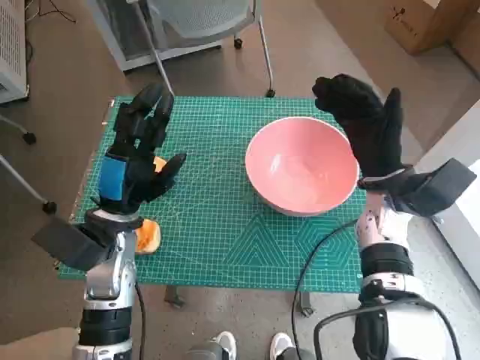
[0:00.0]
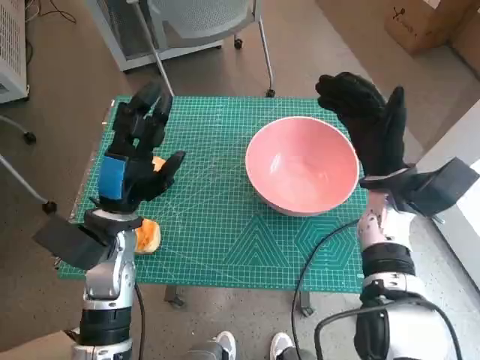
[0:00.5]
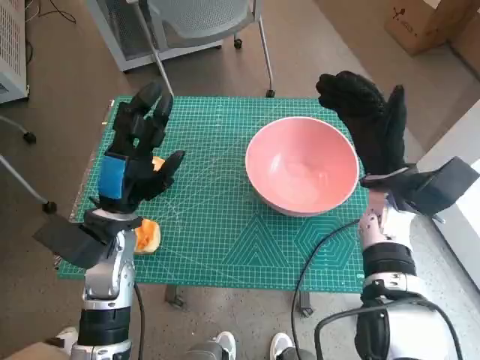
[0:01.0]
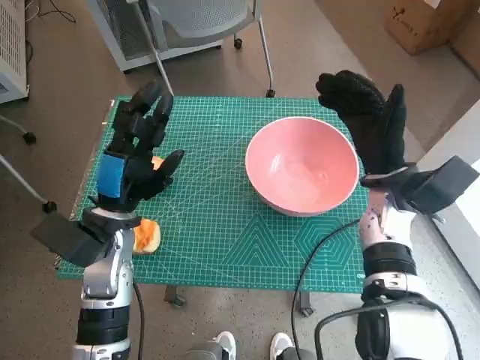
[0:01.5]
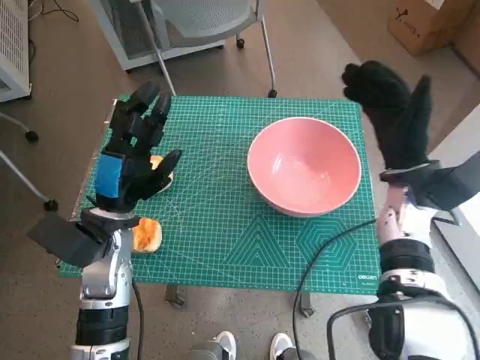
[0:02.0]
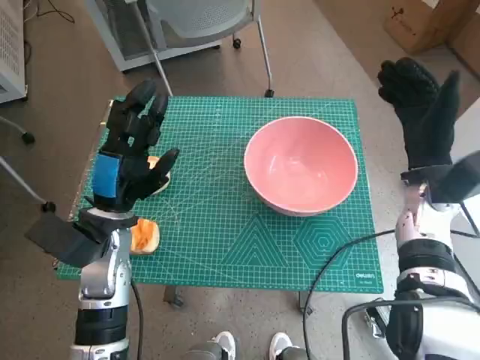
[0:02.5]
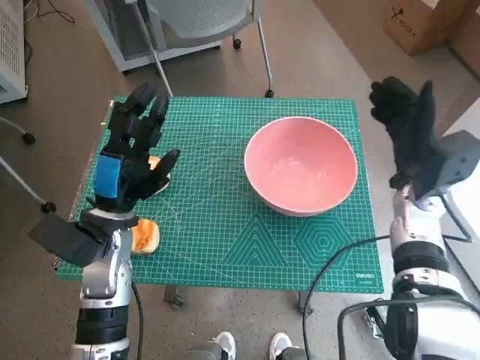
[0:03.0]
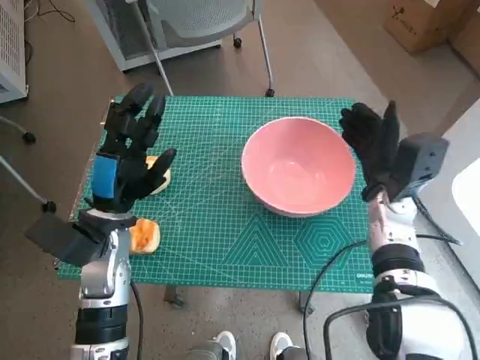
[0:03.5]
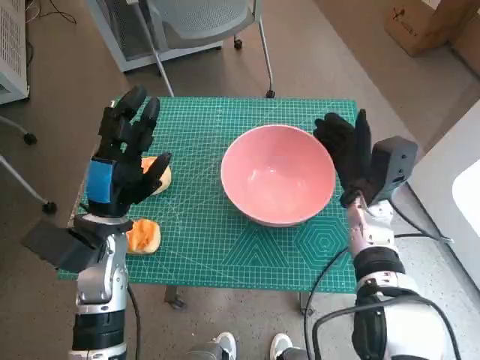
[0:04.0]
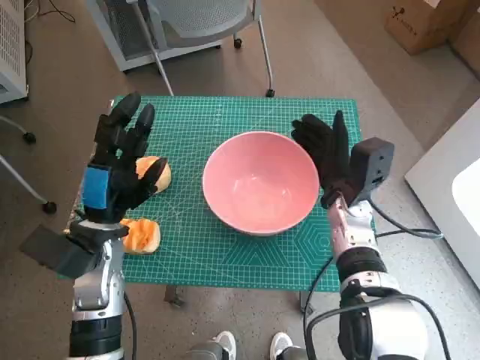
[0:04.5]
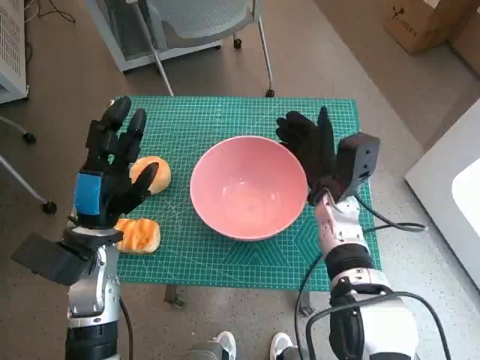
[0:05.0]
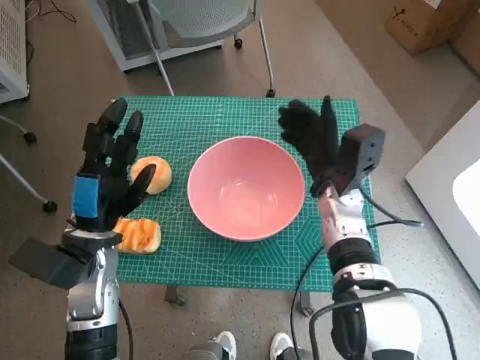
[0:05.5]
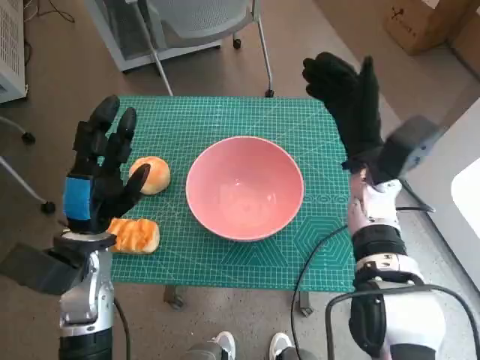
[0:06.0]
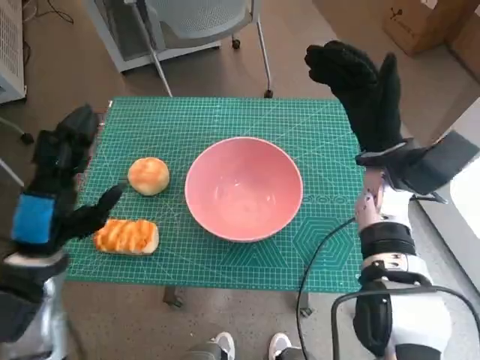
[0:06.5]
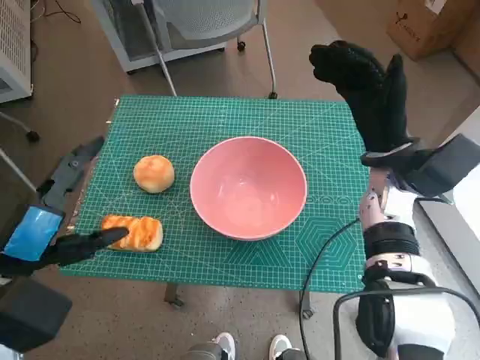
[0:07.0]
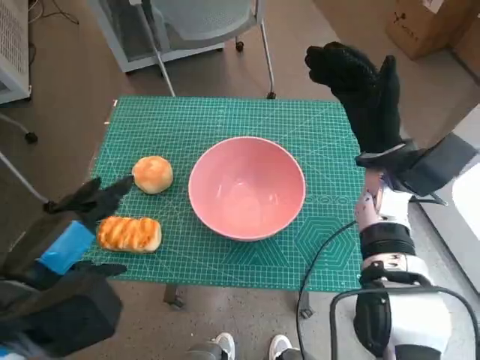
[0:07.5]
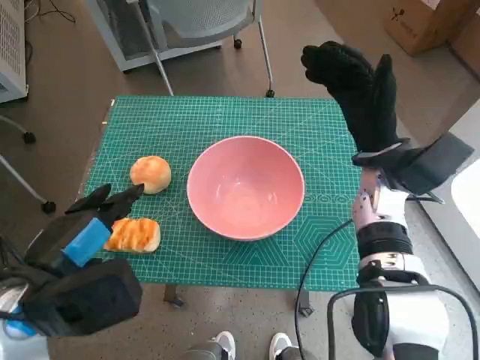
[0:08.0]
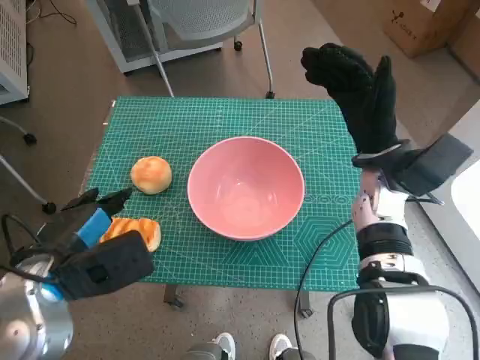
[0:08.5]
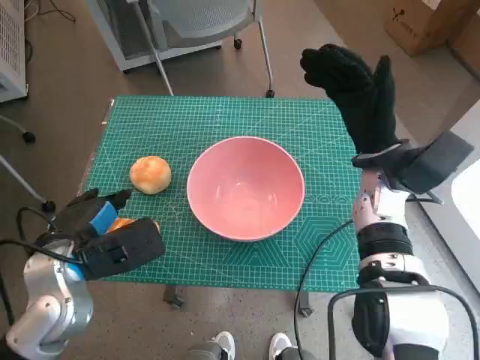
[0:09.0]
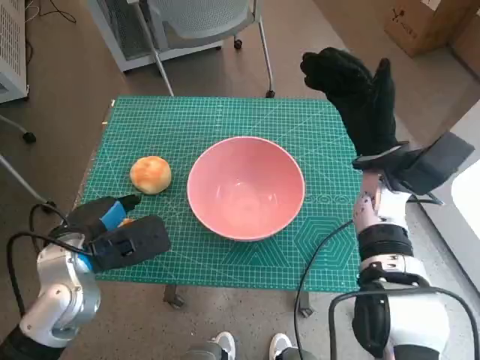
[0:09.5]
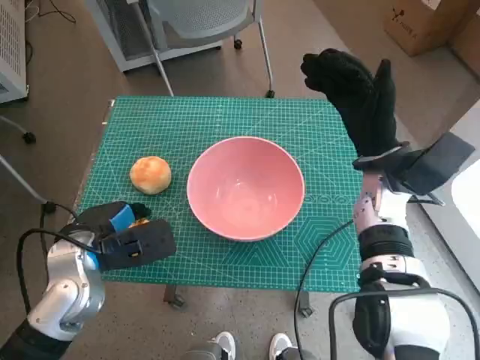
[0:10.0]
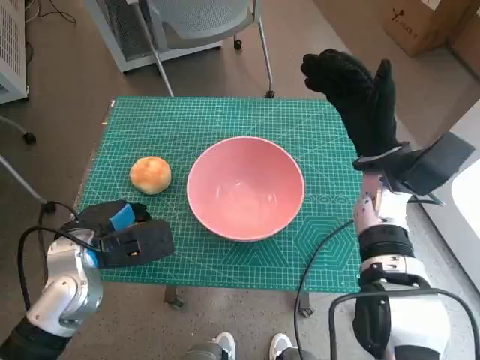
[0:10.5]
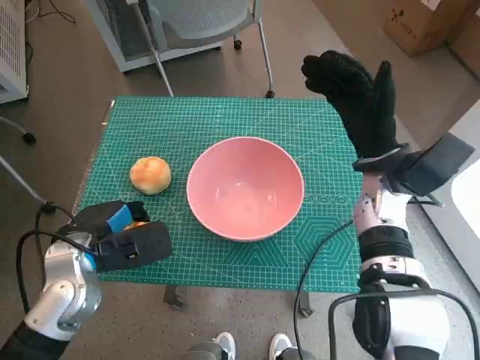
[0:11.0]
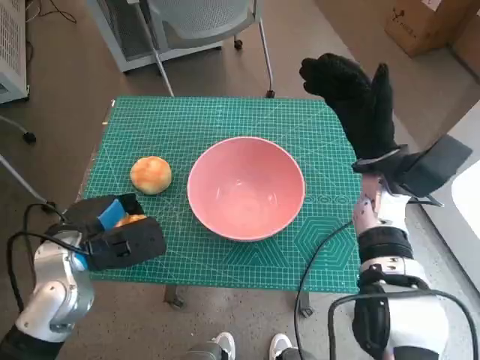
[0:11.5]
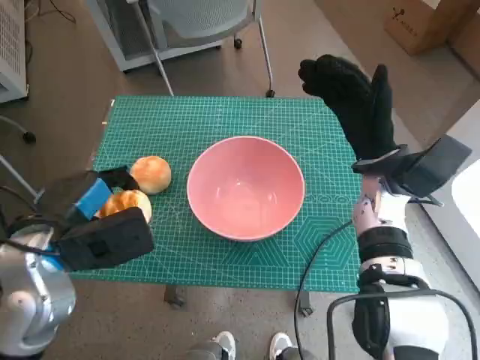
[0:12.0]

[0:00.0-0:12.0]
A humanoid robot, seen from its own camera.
Step, 0:00.0 to 0:05.0: Move the pink bowl to the center of table with right hand.
Step, 0:05.5 to 0:10.0: Grasp the long bread with left hand.
0:02.0 to 0:04.0: The right hand travels downward by roughly 5 cm.
0:04.0 to 0:06.0: The right hand is displaced upward by some 5 cm.
0:06.0 to 0:08.0: The left hand moves upward and backward, some 10 cm.
0:08.0 to 0:10.0: The left hand moves forward and downward, approximately 10 cm.
0:10.0 to 0:12.0: The left hand moves upward, about 5 cm.

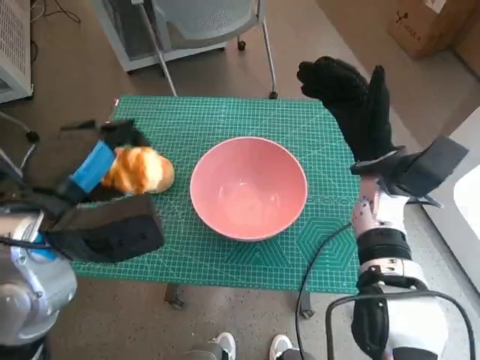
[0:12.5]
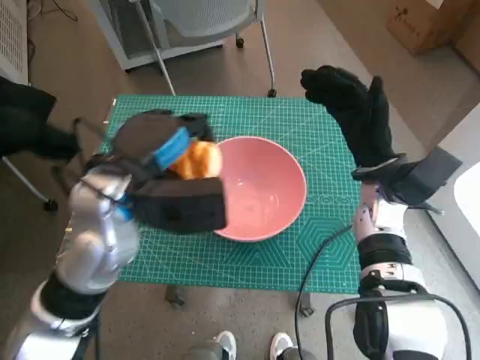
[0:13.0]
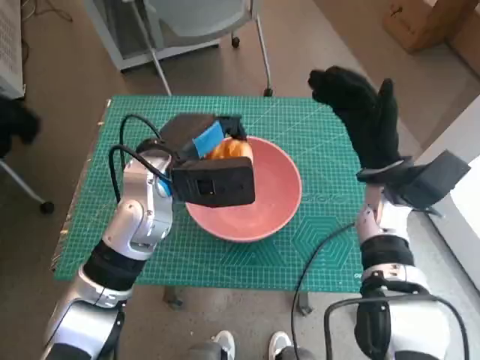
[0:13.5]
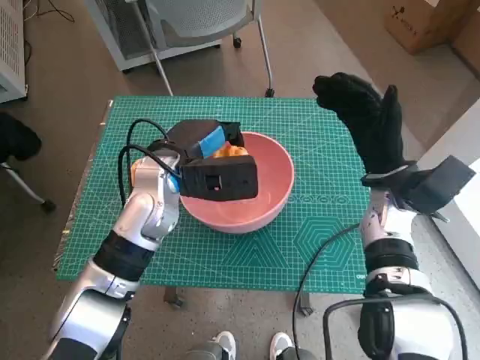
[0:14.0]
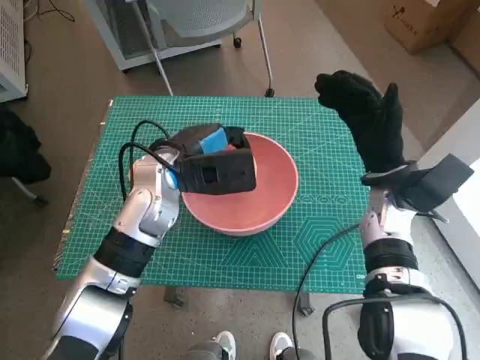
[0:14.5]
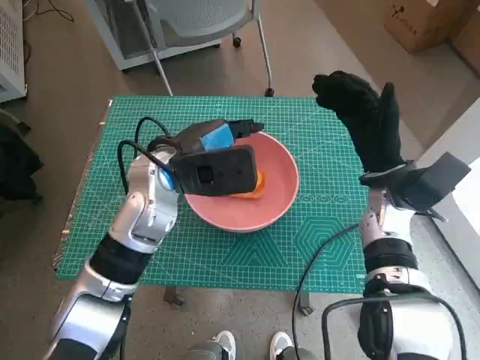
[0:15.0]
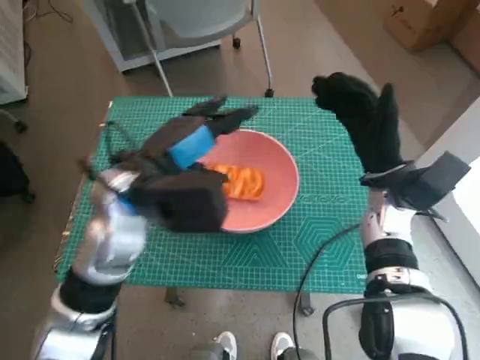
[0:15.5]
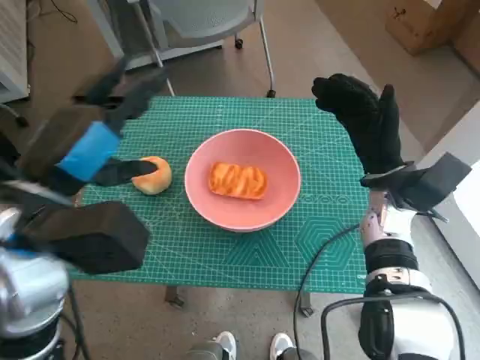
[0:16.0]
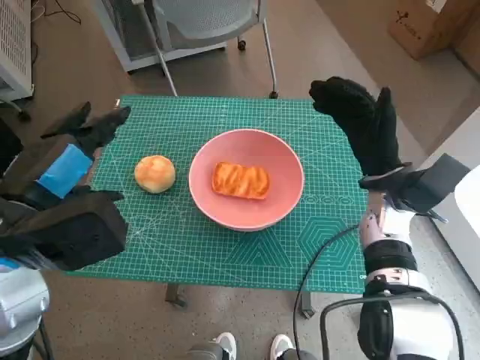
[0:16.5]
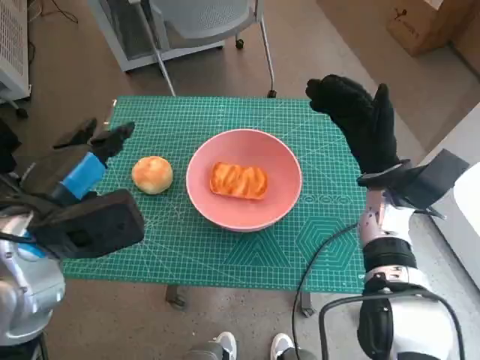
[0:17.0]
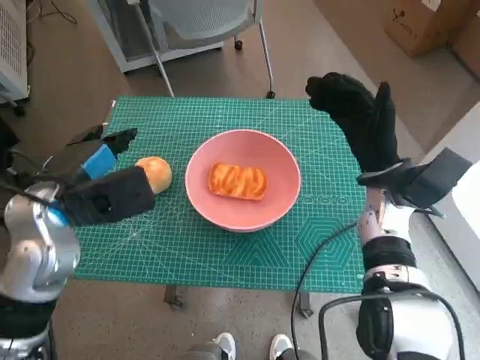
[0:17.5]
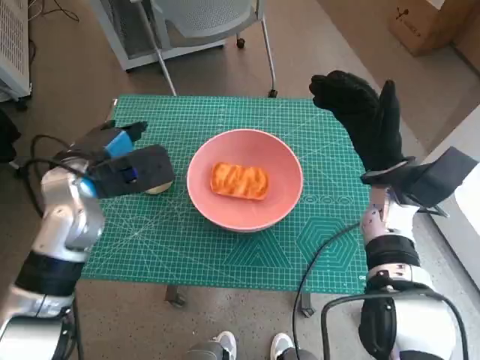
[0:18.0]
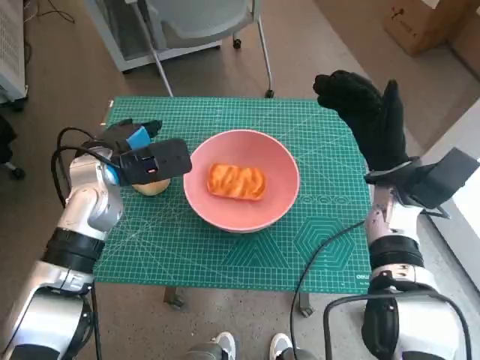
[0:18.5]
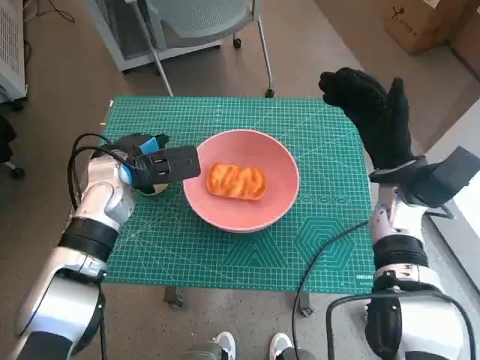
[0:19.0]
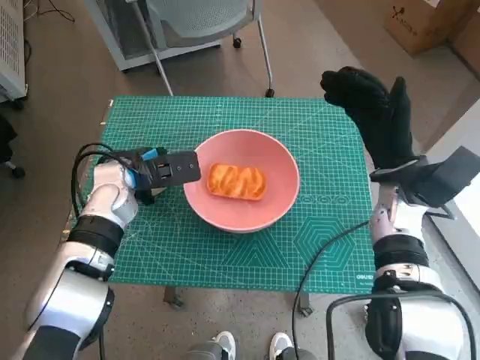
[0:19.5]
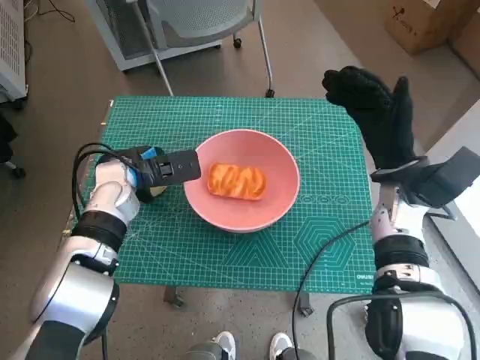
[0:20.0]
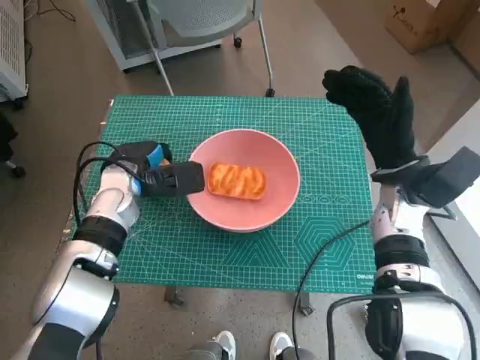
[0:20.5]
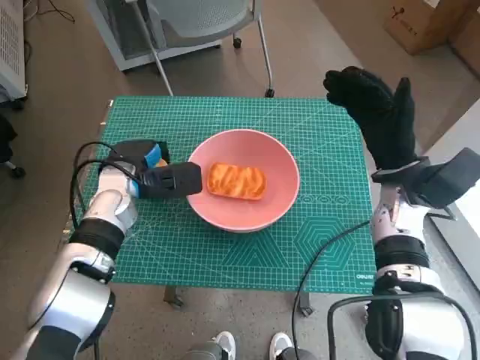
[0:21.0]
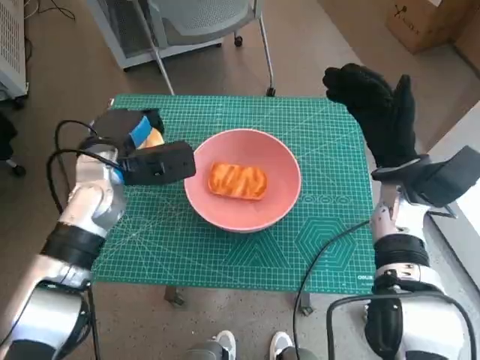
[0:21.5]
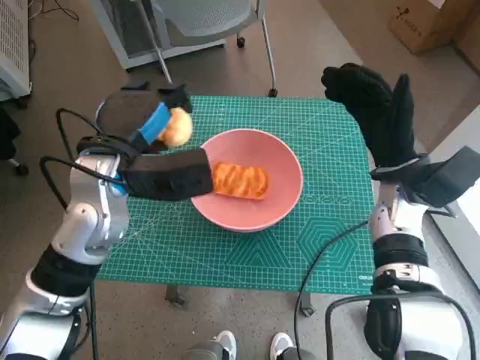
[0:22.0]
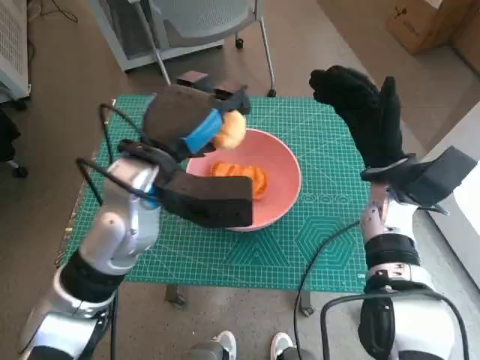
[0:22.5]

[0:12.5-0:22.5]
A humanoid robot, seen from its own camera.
Step, 0:12.5 to 0:14.5: Place the long bread in pink bowl with left hand.
Step, 0:15.0 to 0:20.5: Grasp the round bread with left hand.
0:12.5 to 0:14.5: The left hand is displaced forward, to the right and downward by roughly 15 cm.
0:14.5 to 0:16.5: The left hand goes some 20 cm backward, to the left and upward.
0:16.5 to 0:18.5: The left hand shifts roughly 15 cm forward and downward.
0:18.5 to 0:20.5: The left hand travels downward by some 5 cm.
0:20.5 to 0:22.5: The left hand is displaced upward, to the right and backward by some 15 cm.

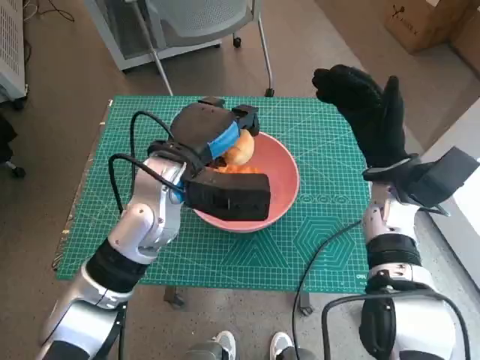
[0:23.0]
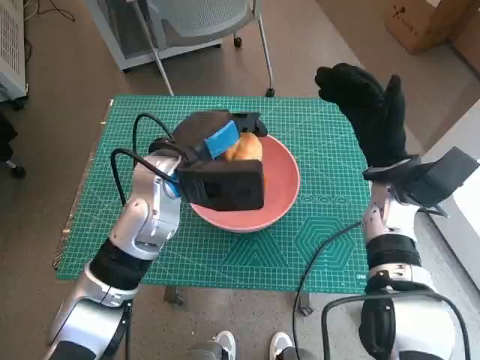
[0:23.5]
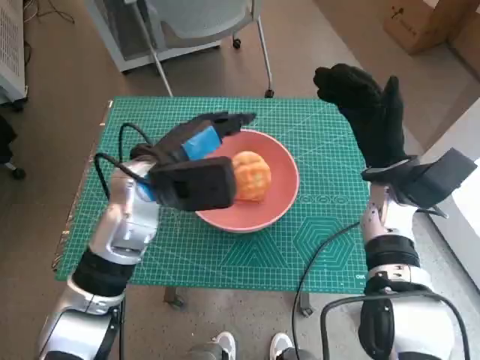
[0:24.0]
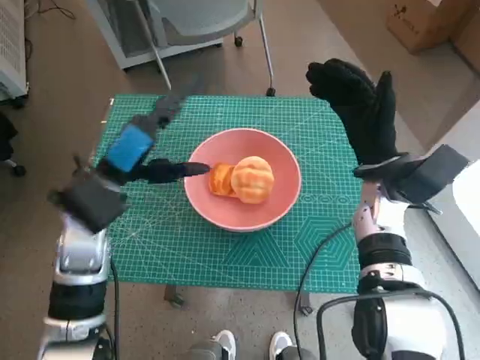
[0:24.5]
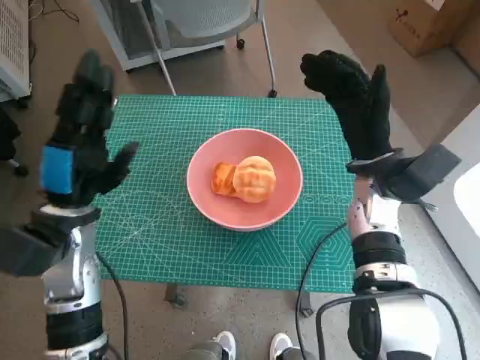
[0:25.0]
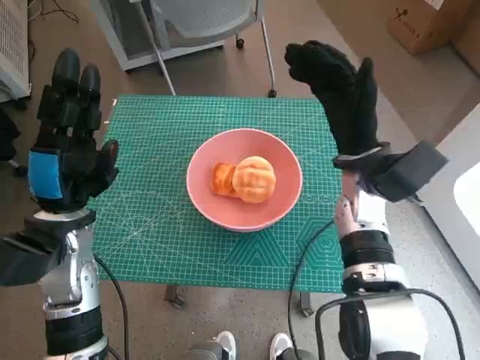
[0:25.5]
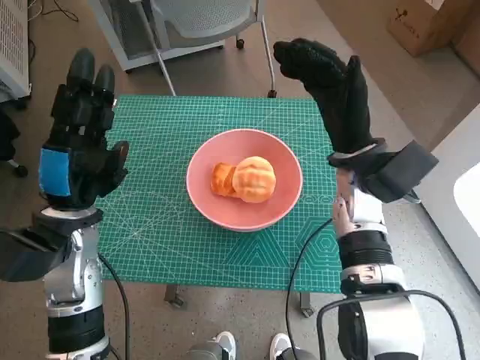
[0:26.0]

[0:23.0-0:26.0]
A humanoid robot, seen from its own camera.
0:23.0 to 0:24.5: The left hand moves to the left, approximately 10 cm.
0:24.5 to 0:26.0: The right hand changes place by roughly 5 cm; the left hand moves roughly 5 cm.
